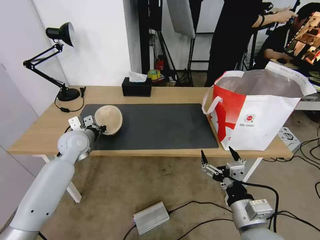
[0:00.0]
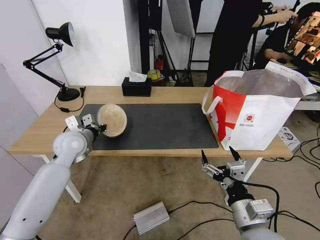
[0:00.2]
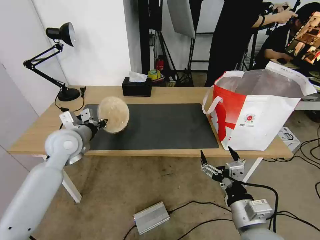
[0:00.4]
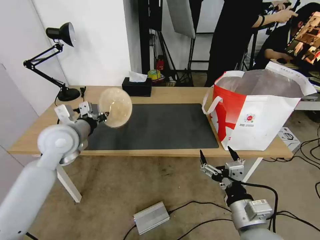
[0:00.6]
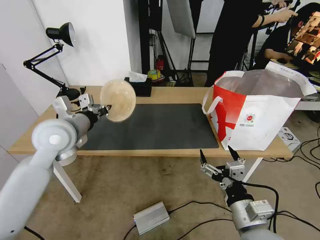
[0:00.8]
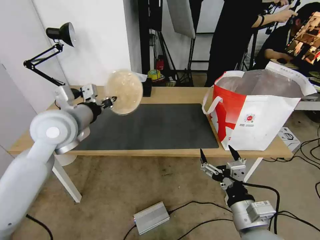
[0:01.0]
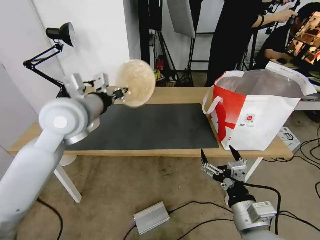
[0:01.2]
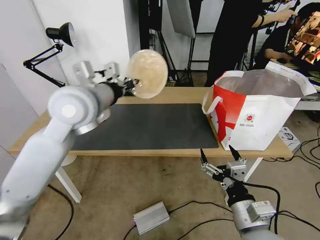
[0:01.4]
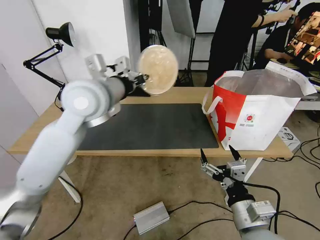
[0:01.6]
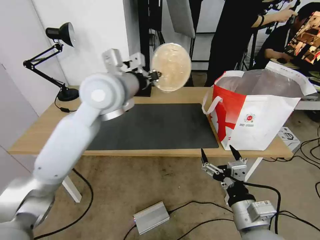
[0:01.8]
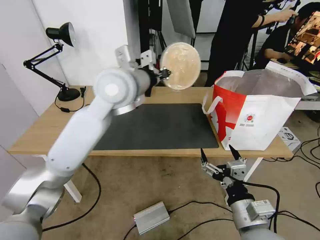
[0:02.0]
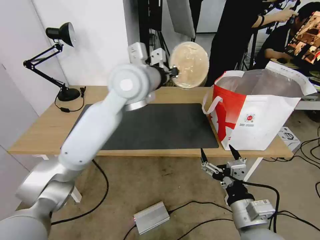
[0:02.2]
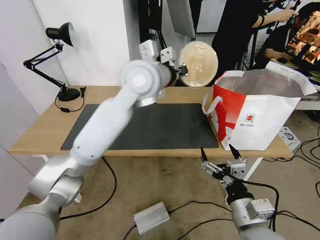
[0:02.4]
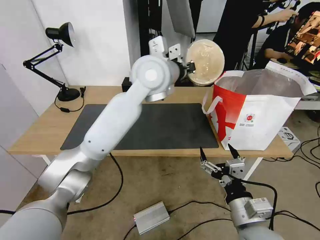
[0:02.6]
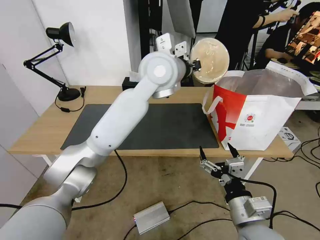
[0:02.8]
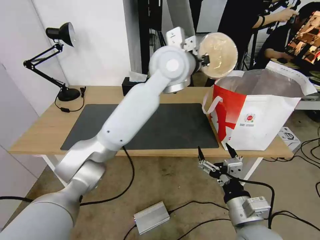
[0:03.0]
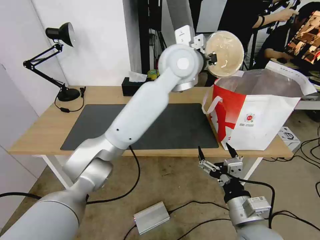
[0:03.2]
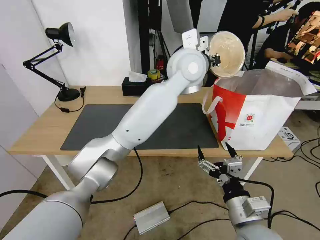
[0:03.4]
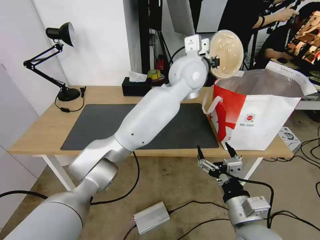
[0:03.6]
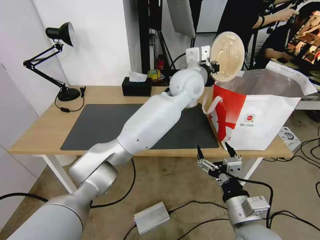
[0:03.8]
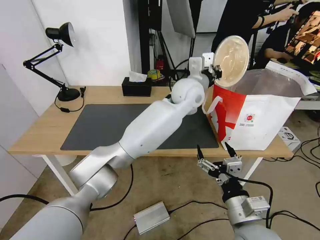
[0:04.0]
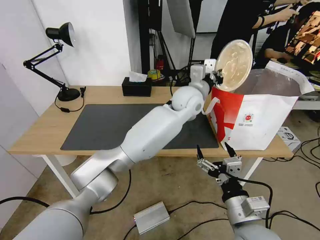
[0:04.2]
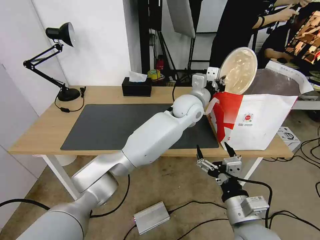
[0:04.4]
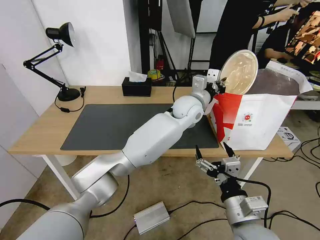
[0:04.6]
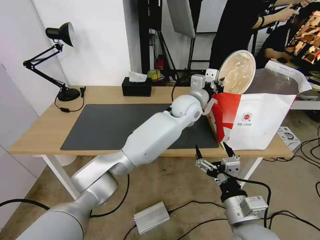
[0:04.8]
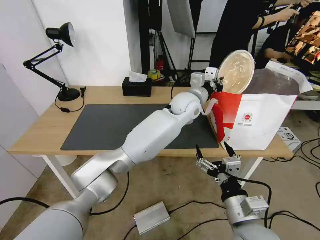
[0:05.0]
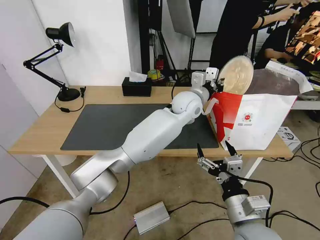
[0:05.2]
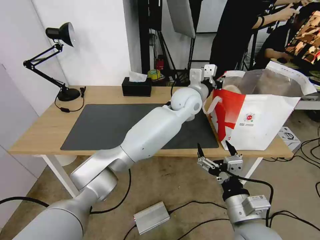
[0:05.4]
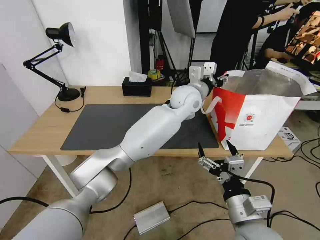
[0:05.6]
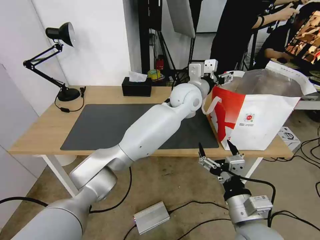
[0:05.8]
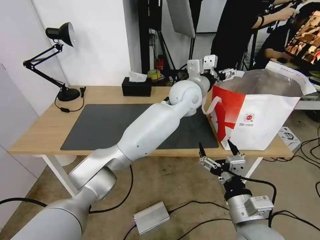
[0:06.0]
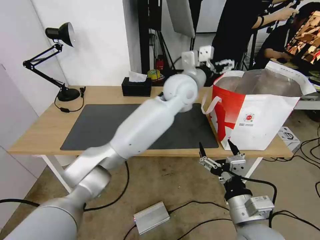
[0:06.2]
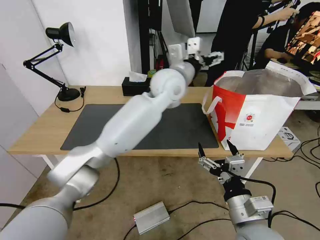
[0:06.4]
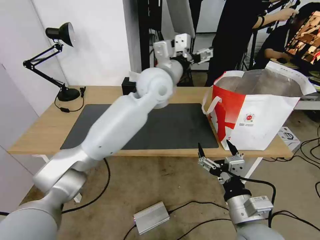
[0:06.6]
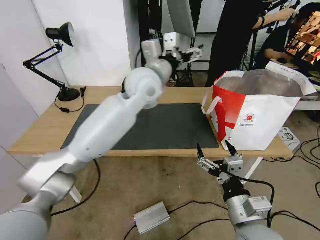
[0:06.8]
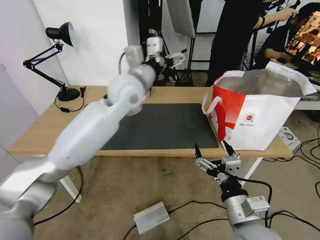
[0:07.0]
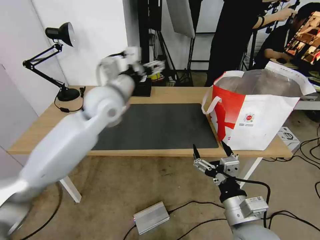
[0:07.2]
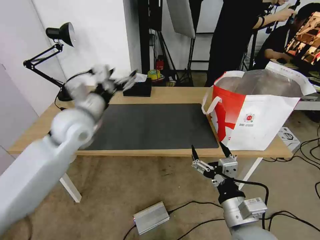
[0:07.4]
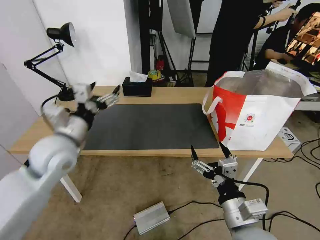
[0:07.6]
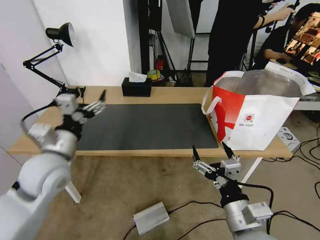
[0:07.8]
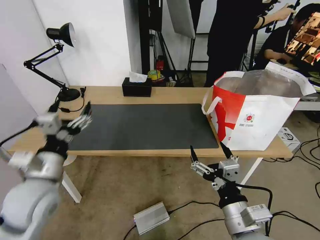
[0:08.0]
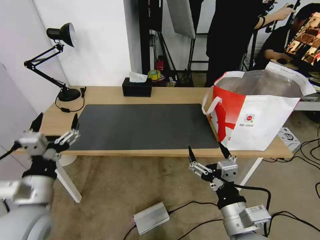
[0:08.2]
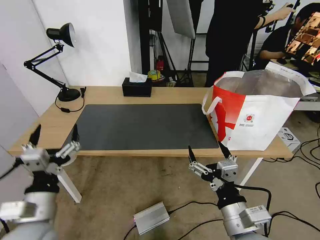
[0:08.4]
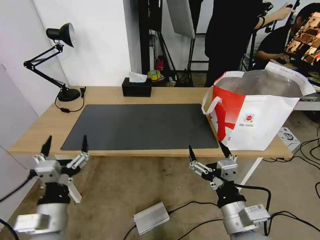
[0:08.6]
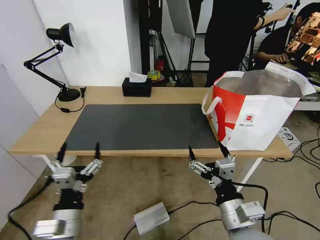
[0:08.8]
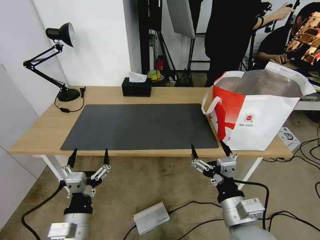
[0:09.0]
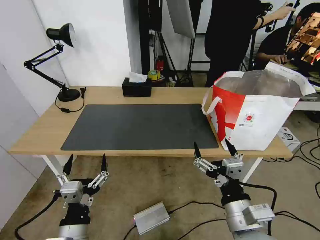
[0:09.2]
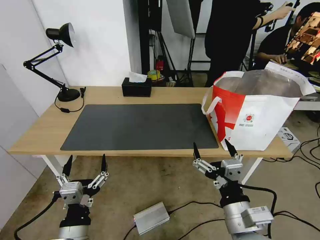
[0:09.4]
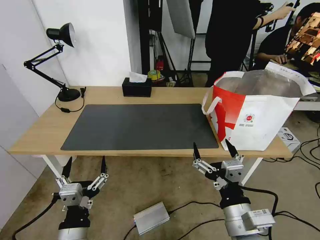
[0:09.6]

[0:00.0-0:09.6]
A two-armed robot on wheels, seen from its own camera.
Task of the whole recording: Pick up the trash from the table and place it into the takeout bag.
0:00.0 to 0:01.6: The left gripper shifts roughly 25 cm upward and to the right.
0:01.6 to 0:03.2: The left gripper is displaced to the right by roughly 20 cm.
0:03.2 to 0:04.8: The left gripper heads downward, covering about 15 cm.
0:04.8 to 0:06.4: The left gripper goes roughly 10 cm upward and to the left, and opens.
0:06.4 to 0:08.0: The left gripper heads to the left, backward and downward, covering roughly 40 cm.
0:08.0 to 0:09.6: The left gripper travels backward, downward and to the right by roughly 20 cm.
